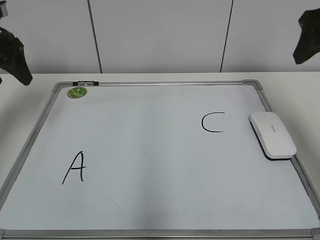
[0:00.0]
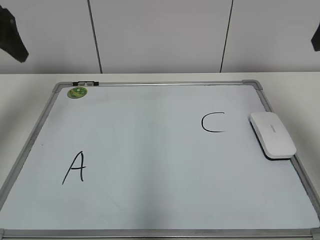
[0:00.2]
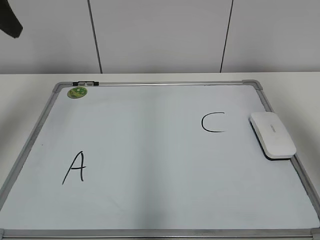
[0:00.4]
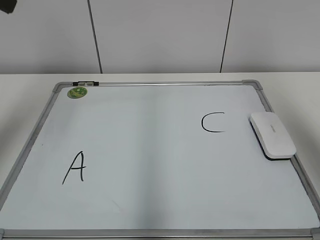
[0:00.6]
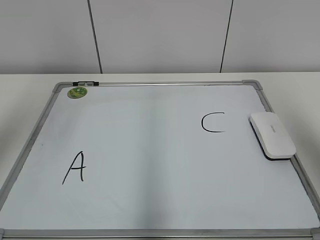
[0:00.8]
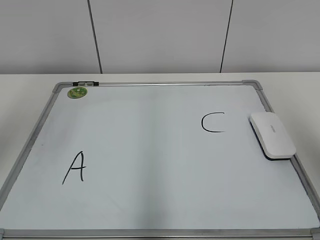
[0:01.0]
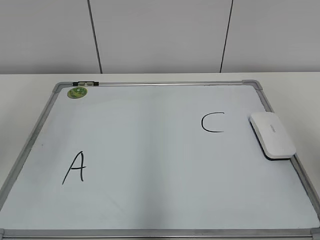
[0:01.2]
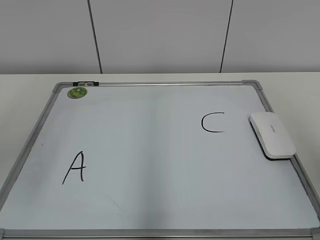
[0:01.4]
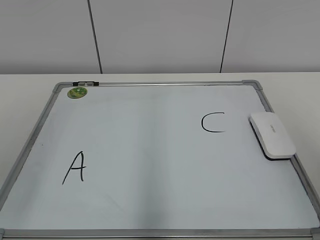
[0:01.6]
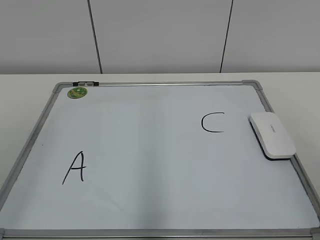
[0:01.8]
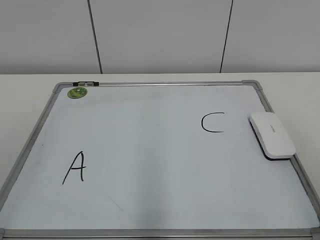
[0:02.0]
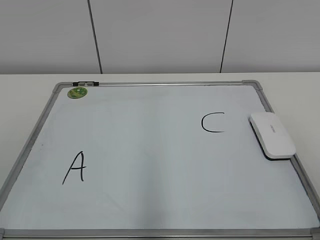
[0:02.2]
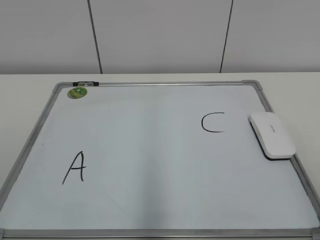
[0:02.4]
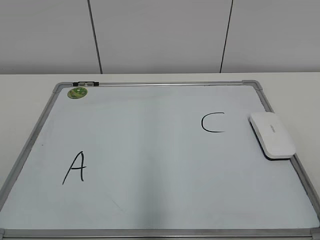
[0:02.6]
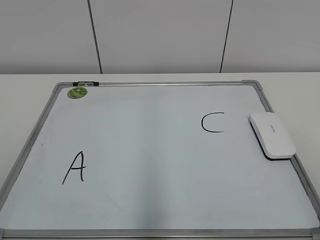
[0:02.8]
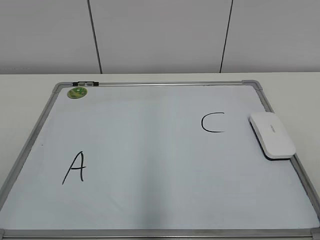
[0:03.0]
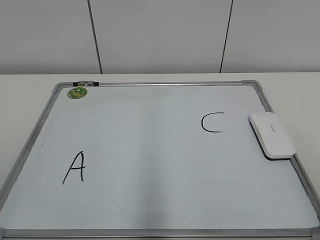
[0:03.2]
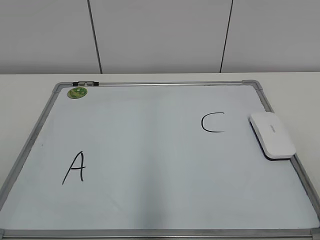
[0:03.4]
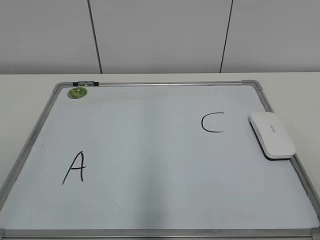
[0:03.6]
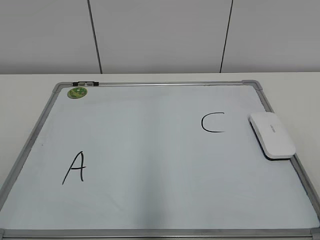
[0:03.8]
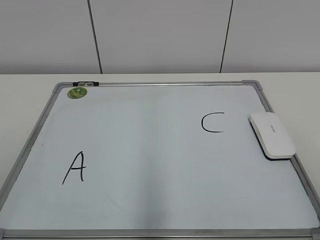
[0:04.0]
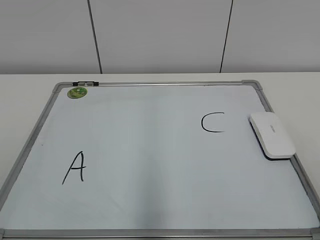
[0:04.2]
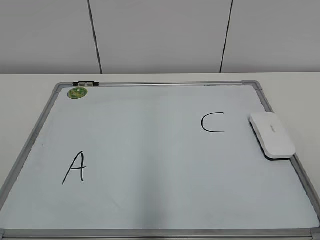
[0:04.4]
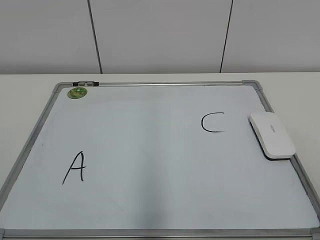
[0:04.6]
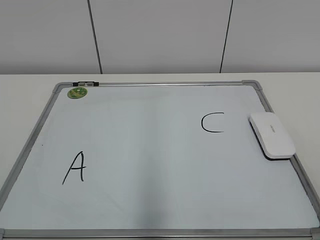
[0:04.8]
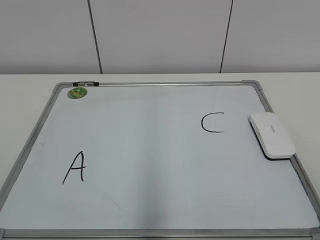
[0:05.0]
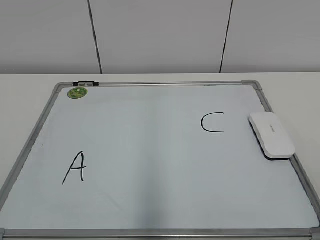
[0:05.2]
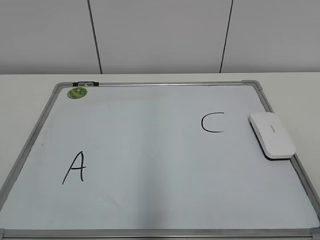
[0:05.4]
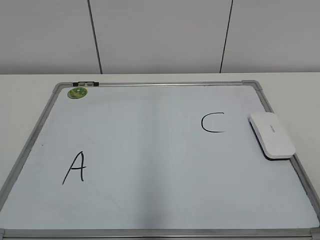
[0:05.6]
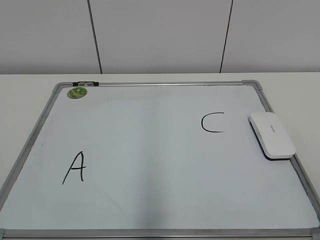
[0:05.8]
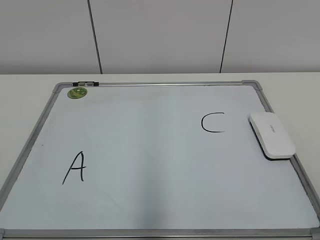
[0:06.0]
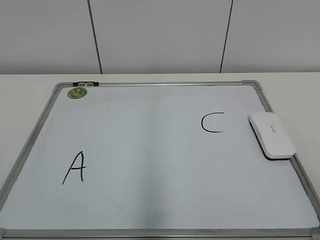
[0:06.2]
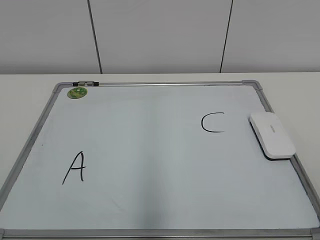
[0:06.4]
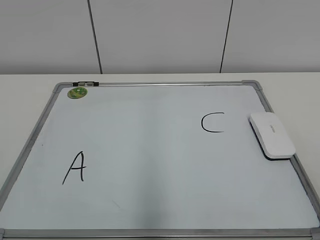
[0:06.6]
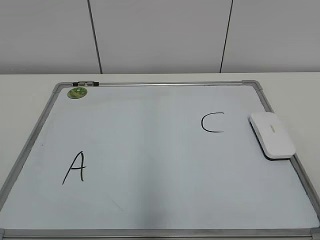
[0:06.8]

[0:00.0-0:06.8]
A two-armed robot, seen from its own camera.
Task of the whole recording: pick up the eraser on the blackboard and erase the letter "B".
0:00.0 to 0:01.4: The right gripper goes approximately 20 cm backward, while the left gripper is displaced backward and upward by some 25 cm.
0:01.4 to 0:02.8: The right gripper goes roughly 15 cm downward and backward.
0:02.8 to 0:04.0: Both grippers stay about where they are.
0:05.4 to 0:06.8: The two grippers keep their place.

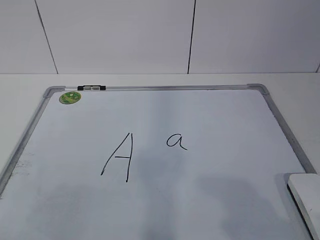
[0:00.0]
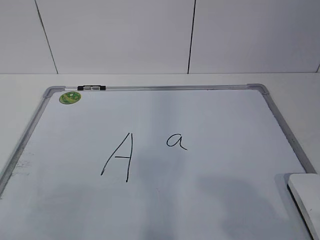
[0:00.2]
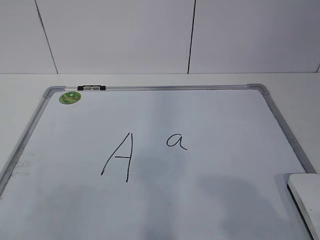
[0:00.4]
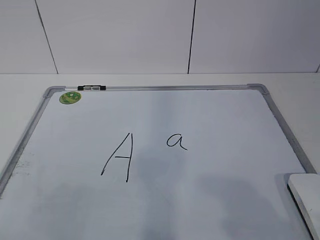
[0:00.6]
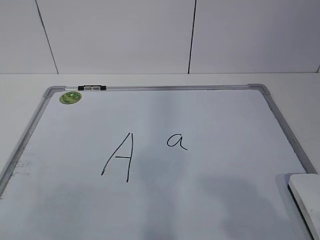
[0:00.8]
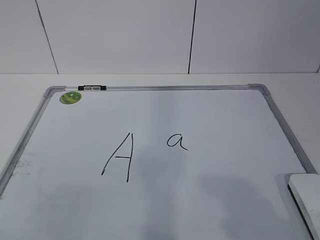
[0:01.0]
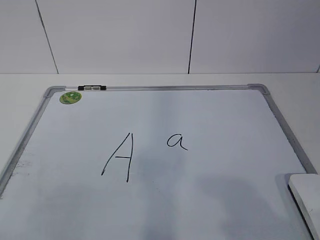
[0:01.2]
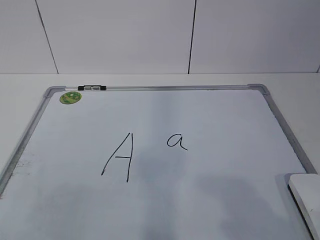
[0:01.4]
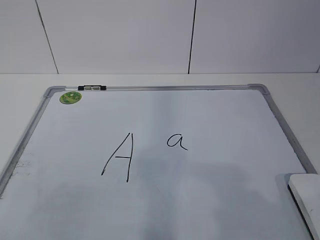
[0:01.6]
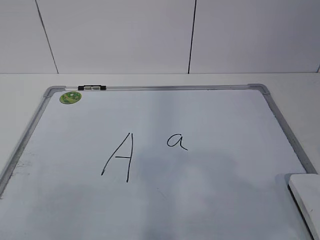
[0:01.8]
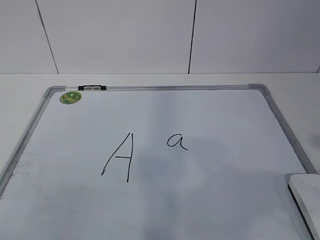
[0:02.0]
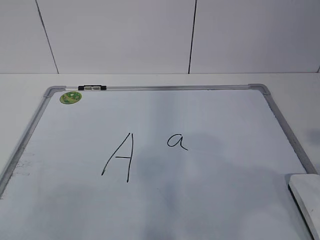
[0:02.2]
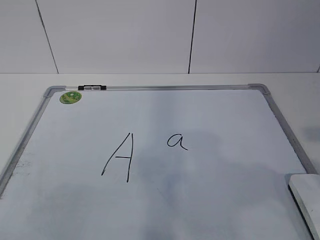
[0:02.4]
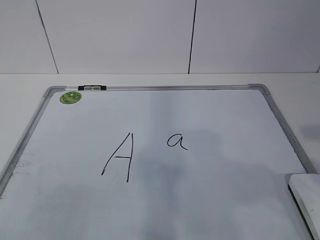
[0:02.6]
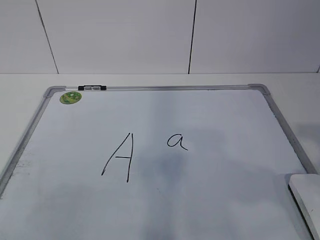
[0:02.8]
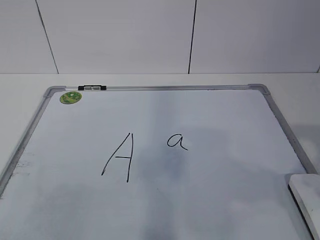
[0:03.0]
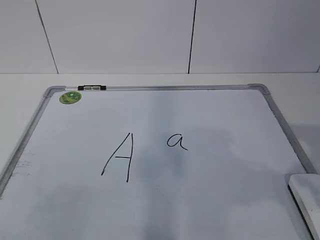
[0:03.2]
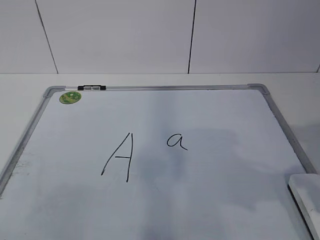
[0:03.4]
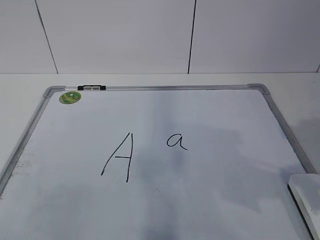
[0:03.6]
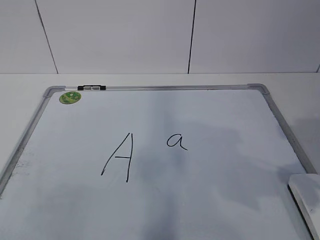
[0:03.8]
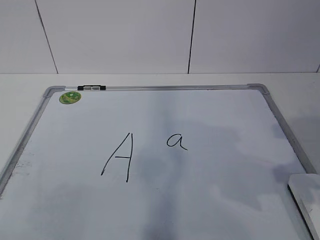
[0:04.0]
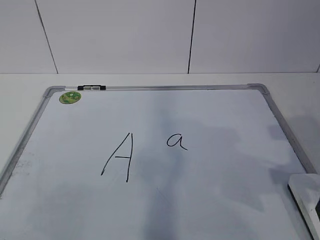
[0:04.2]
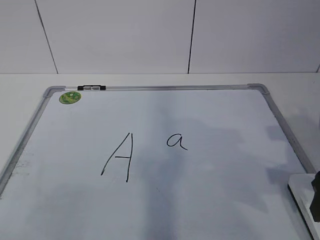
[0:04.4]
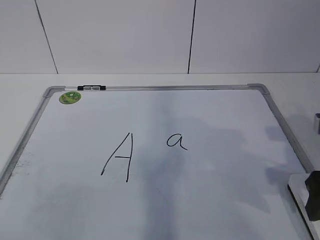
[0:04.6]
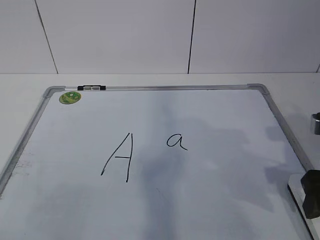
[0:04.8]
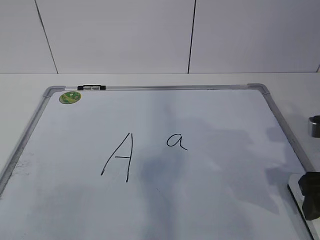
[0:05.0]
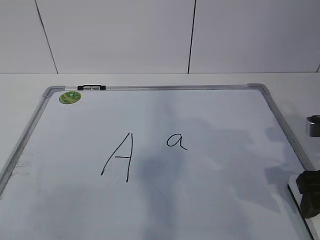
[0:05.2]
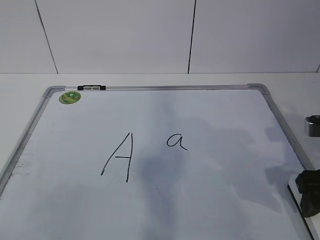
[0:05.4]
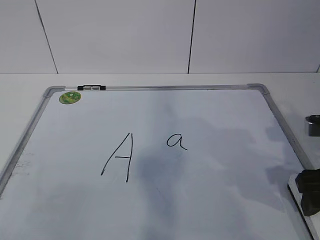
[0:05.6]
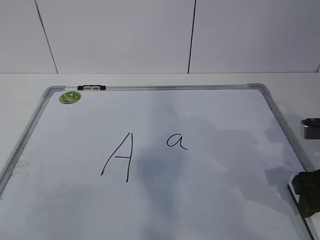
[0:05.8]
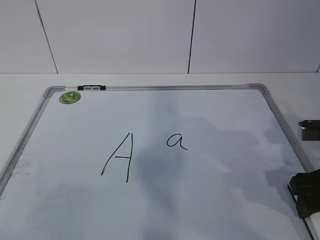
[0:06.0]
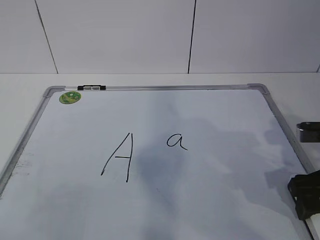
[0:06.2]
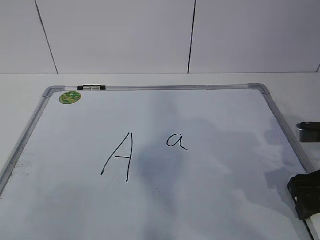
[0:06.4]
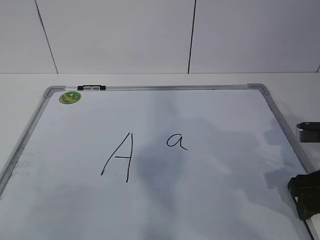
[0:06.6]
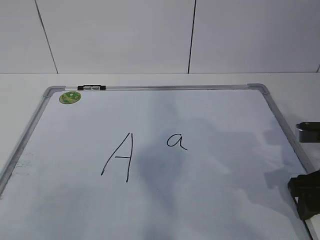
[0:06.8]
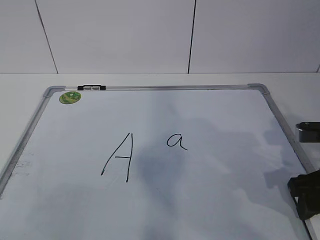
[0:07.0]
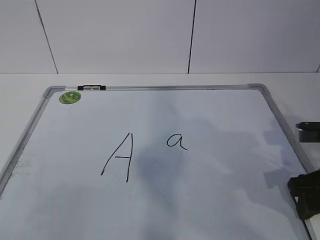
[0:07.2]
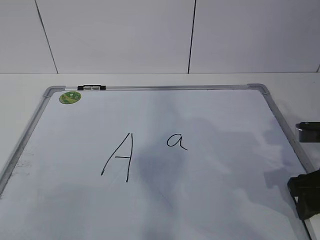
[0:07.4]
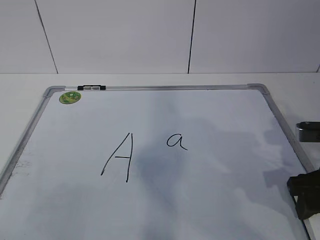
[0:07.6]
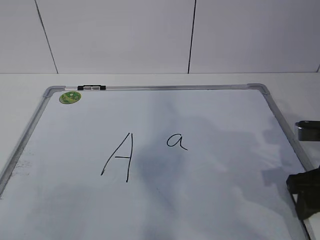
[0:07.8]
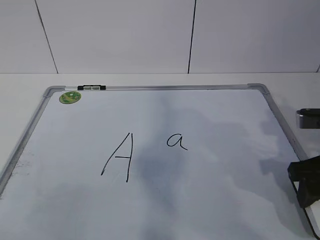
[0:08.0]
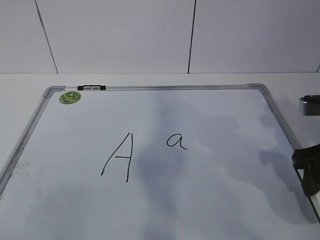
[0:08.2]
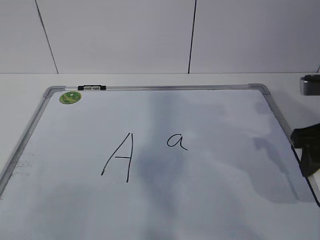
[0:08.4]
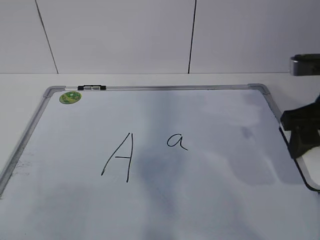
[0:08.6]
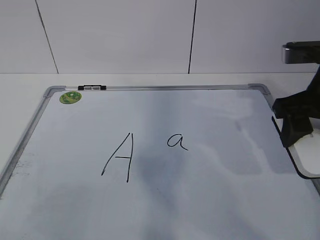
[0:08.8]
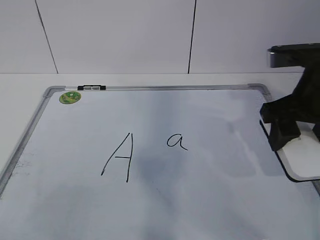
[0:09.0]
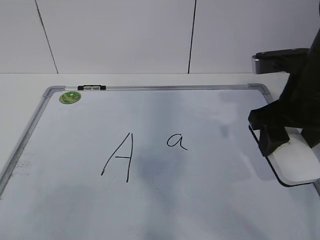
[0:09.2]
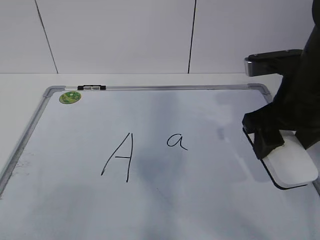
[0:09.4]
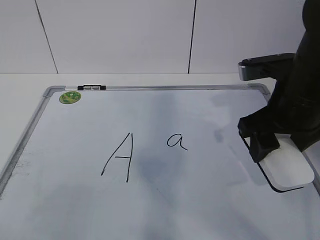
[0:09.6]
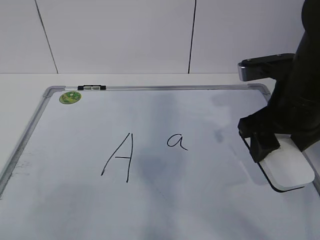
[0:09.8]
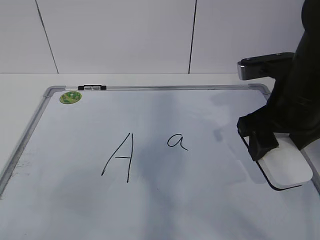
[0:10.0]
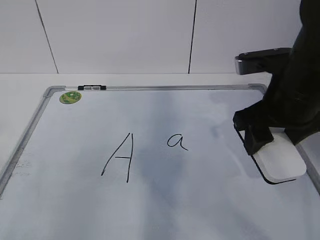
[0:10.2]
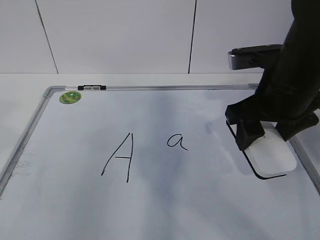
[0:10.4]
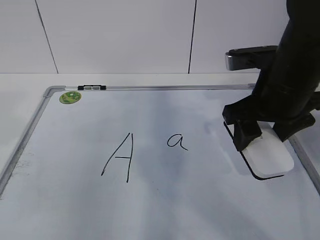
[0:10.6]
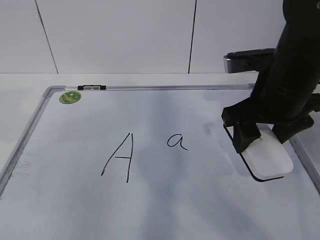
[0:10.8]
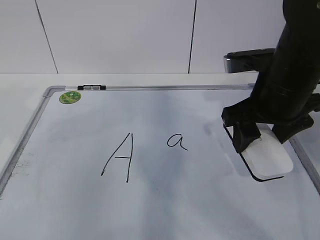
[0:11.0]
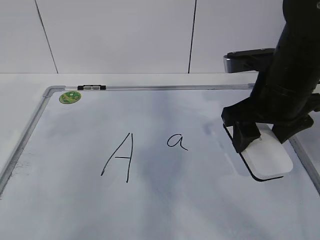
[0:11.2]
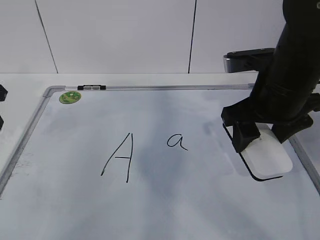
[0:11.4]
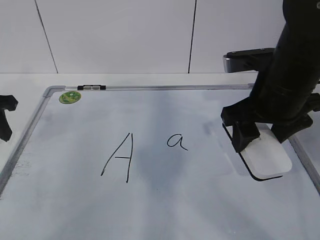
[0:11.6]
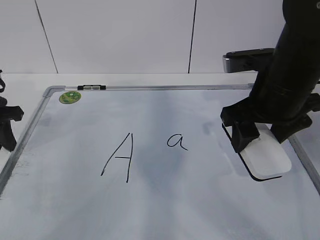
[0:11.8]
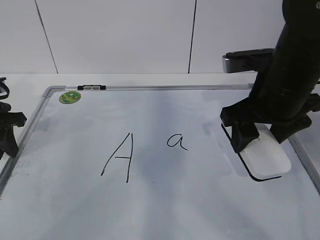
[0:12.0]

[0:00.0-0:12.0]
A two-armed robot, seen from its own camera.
Task of the whole recording: pick up the eraser on the blackboard and erase the letter "a".
Step, 0:05.8 to 0:10.8: Hold the drawing board steady with your left hand.
0:03.0 to 0:04.4: The right gripper heads forward and downward, covering about 10 cm.
0:04.4 to 0:06.0: The right gripper shifts by roughly 5 cm.
0:07.6 to 0:09.0: The right gripper moves upward, roughly 10 cm.
0:10.4 to 0:12.0: The left gripper is displaced forward and downward by approximately 30 cm.

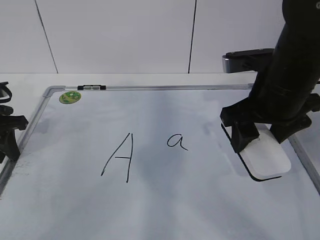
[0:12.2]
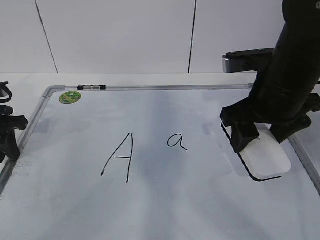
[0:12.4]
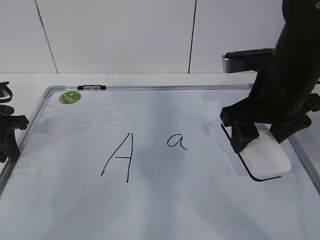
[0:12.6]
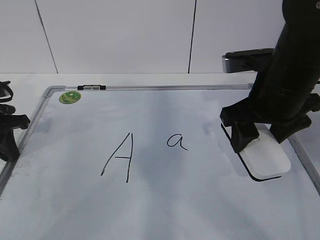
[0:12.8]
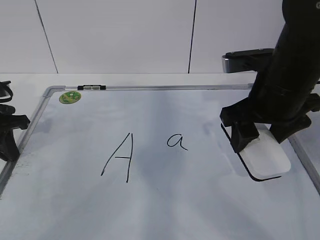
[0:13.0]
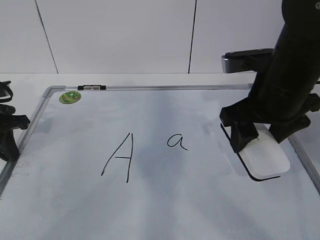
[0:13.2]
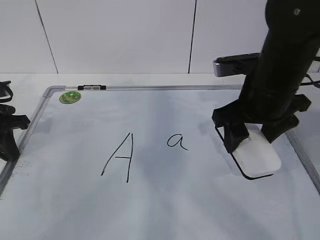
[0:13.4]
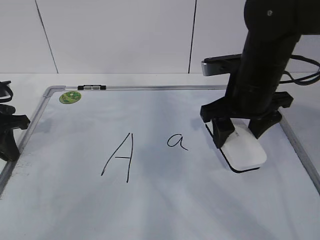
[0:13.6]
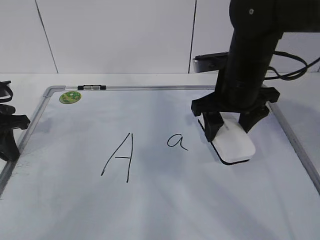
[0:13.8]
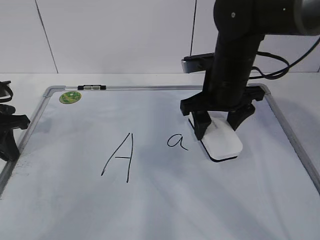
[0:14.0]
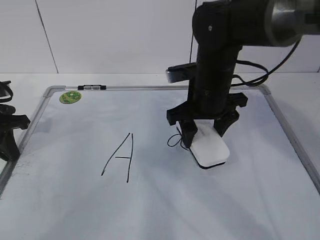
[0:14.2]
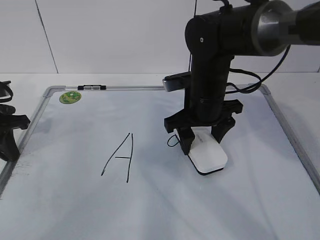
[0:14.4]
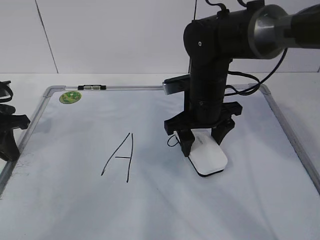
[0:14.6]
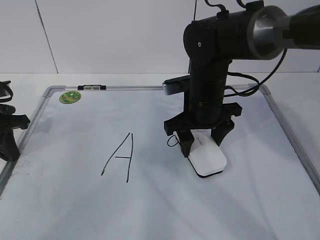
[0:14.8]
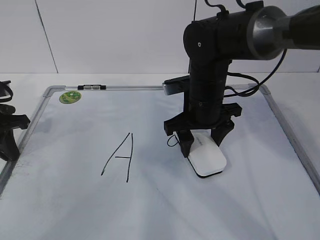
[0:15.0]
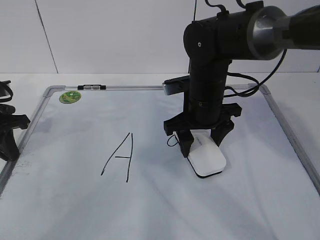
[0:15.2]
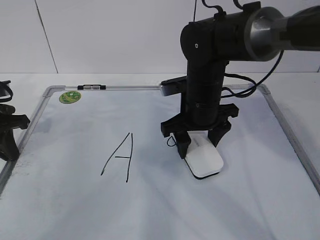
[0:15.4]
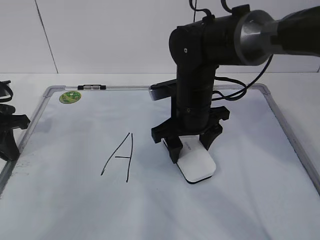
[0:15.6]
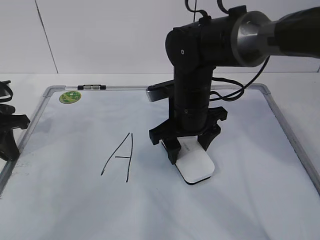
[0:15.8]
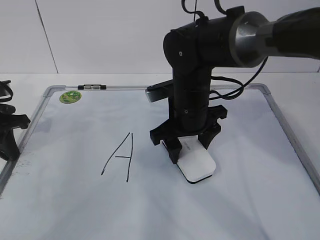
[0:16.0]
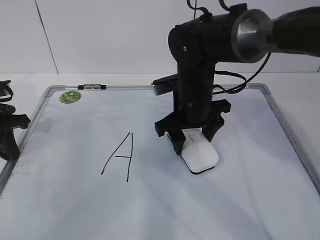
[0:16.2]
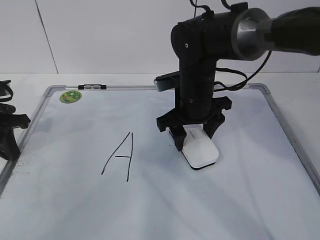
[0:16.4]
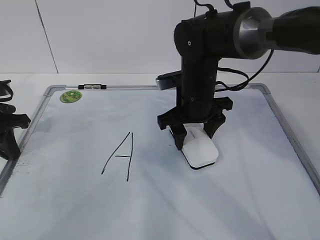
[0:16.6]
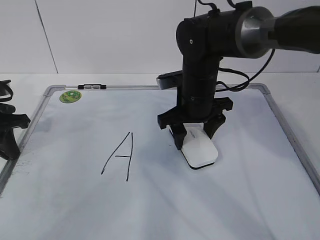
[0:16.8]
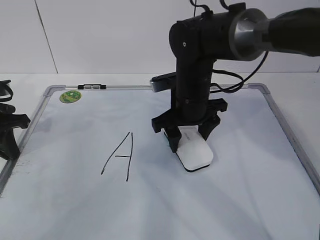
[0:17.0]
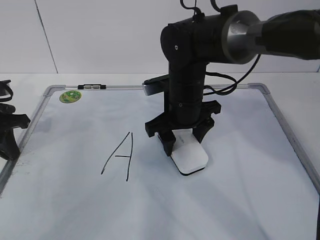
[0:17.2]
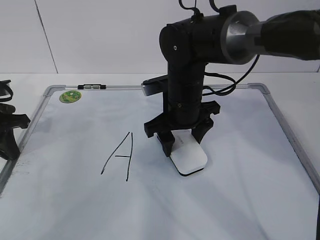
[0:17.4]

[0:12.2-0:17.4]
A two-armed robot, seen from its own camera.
Task of the whole recording: pick up the eraser on the blackboard and erase the letter "a".
Step, 0:12.2 to 0:15.2: Erase the letter a with your right hand.
0:12.2 to 0:14.0: The left gripper closes up; the right gripper moves forward, some 5 cm.
0:14.0 to 0:15.6: The right gripper heads to the left, covering roughly 5 cm.
0:15.6 to 0:17.4: The grippers move only a little.
